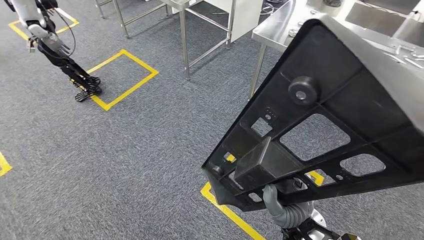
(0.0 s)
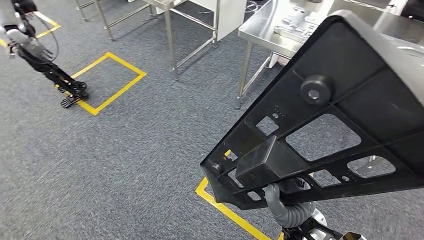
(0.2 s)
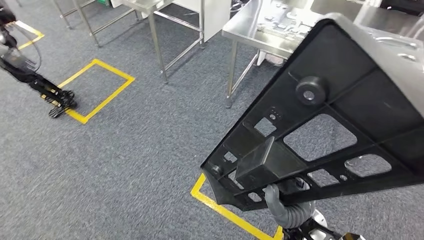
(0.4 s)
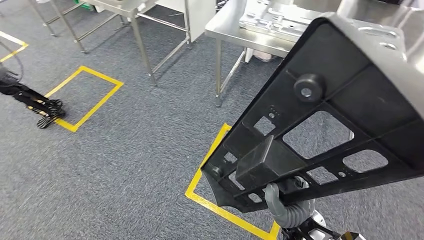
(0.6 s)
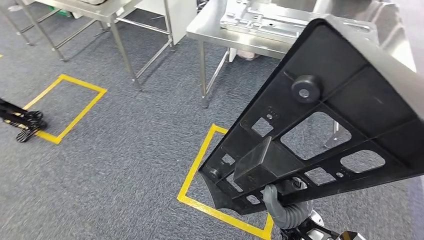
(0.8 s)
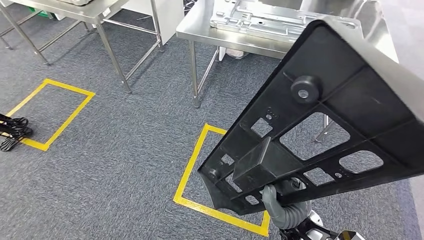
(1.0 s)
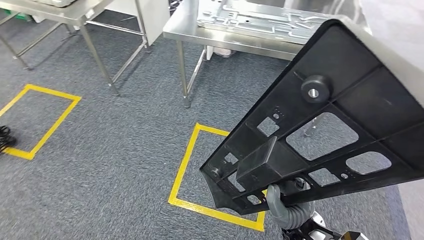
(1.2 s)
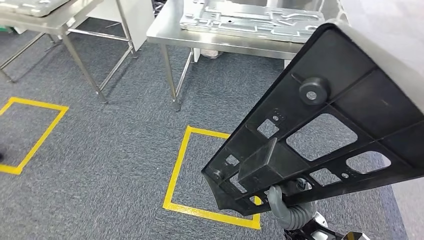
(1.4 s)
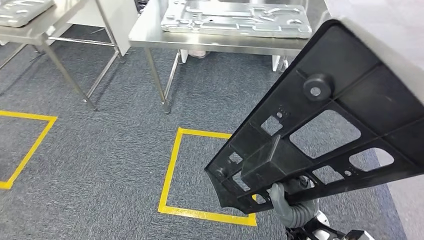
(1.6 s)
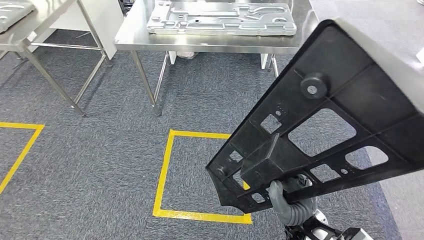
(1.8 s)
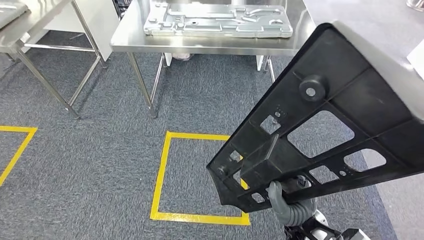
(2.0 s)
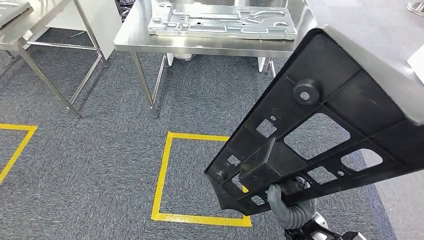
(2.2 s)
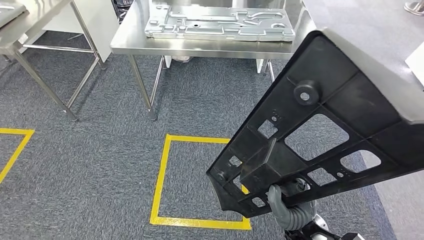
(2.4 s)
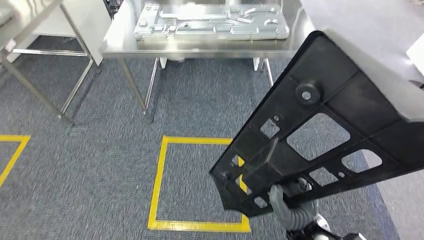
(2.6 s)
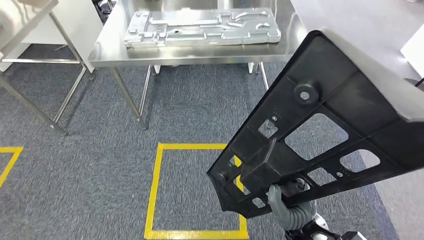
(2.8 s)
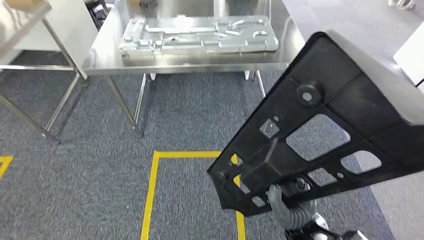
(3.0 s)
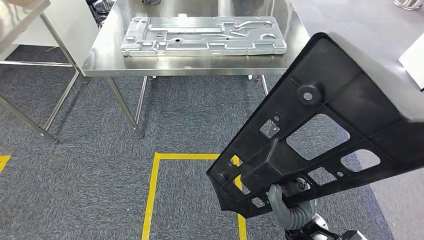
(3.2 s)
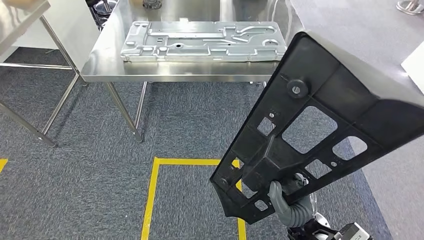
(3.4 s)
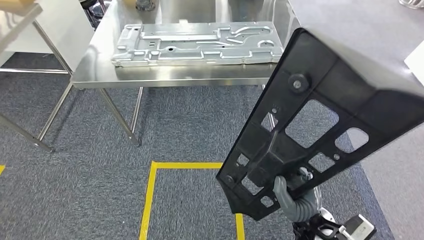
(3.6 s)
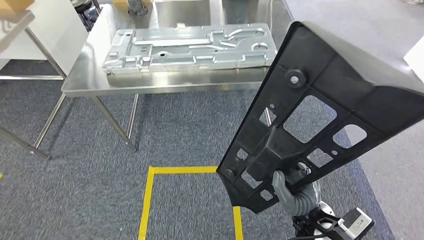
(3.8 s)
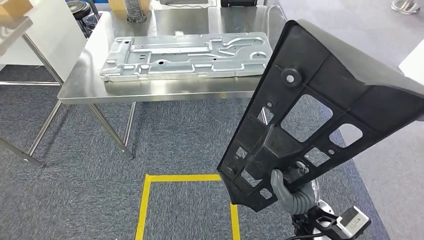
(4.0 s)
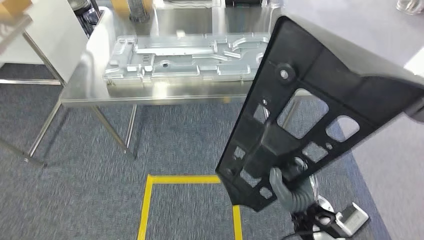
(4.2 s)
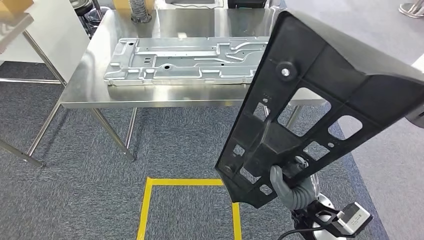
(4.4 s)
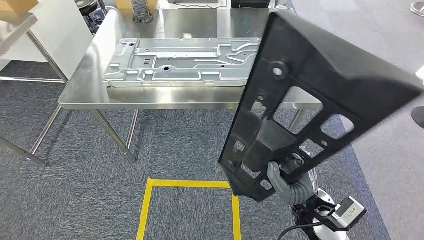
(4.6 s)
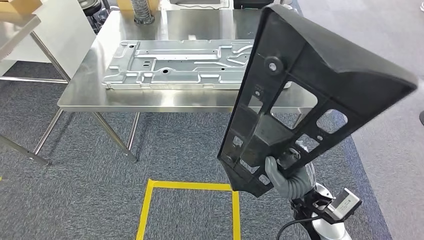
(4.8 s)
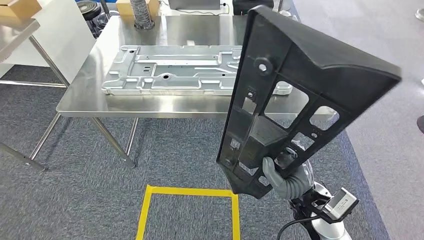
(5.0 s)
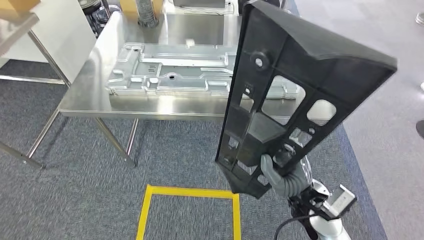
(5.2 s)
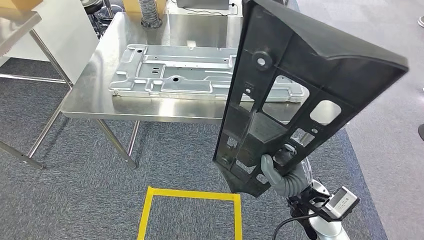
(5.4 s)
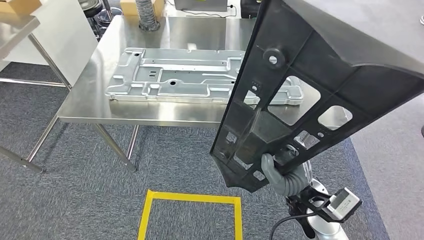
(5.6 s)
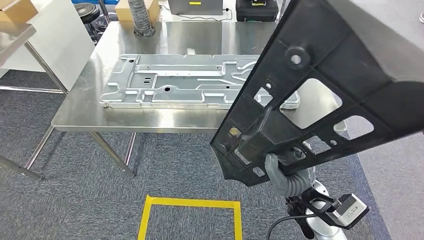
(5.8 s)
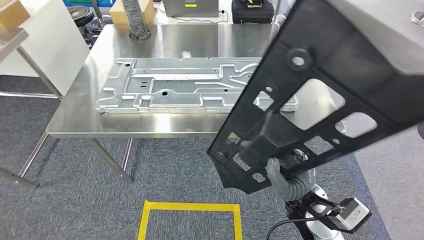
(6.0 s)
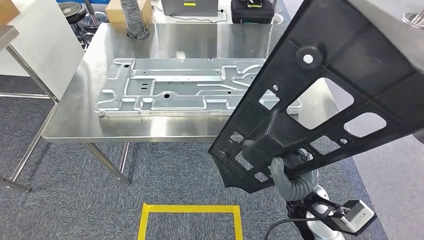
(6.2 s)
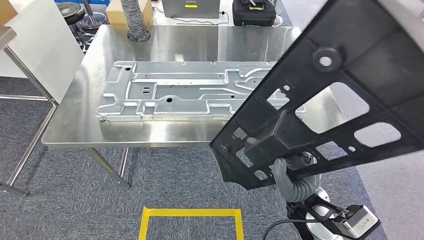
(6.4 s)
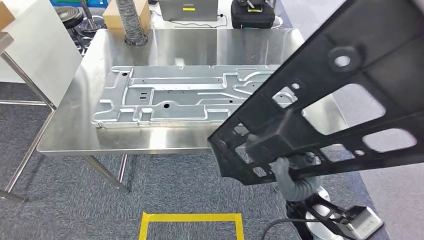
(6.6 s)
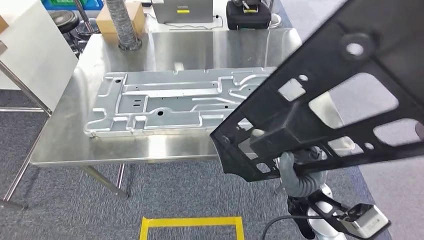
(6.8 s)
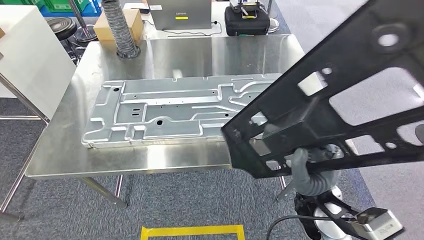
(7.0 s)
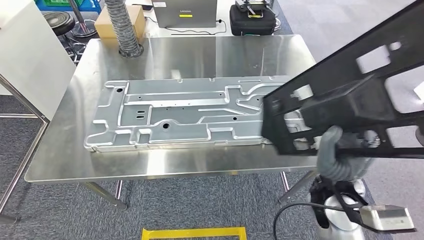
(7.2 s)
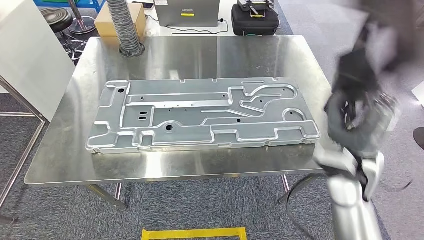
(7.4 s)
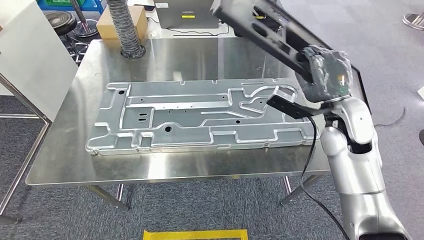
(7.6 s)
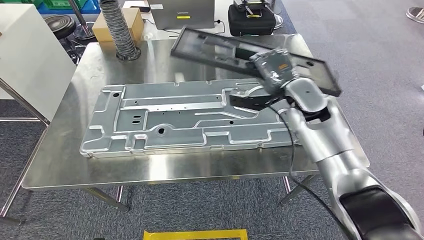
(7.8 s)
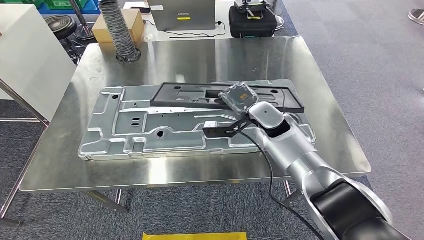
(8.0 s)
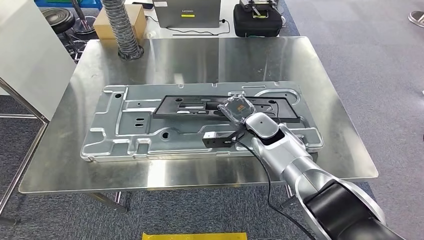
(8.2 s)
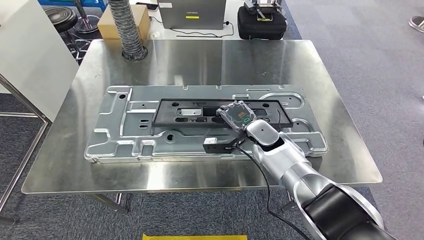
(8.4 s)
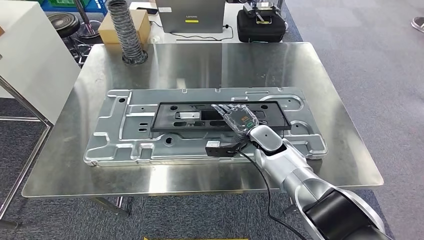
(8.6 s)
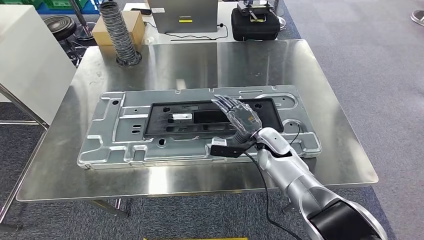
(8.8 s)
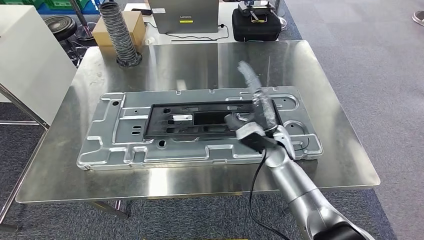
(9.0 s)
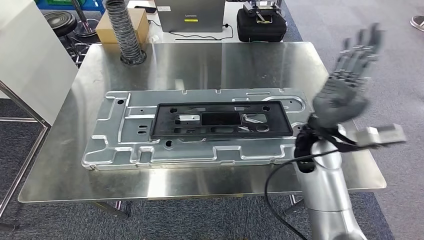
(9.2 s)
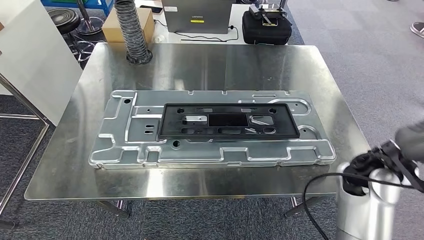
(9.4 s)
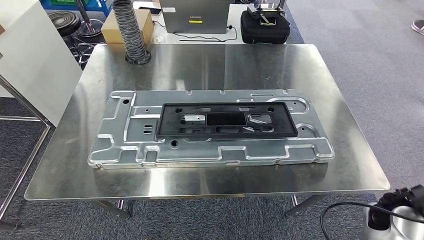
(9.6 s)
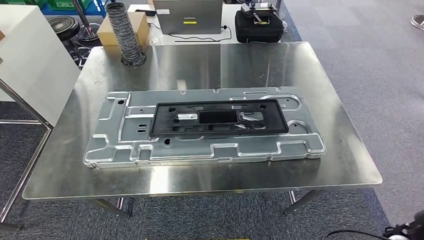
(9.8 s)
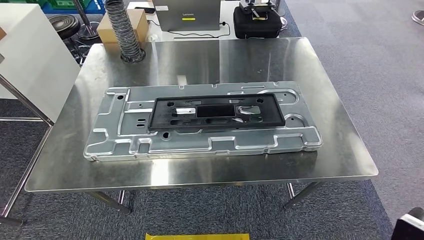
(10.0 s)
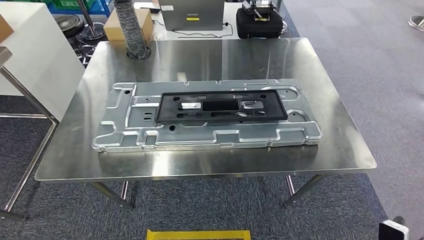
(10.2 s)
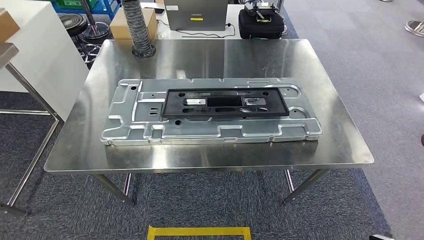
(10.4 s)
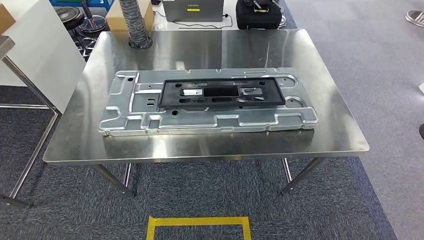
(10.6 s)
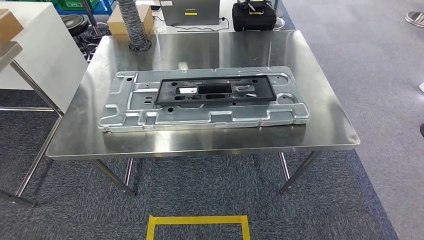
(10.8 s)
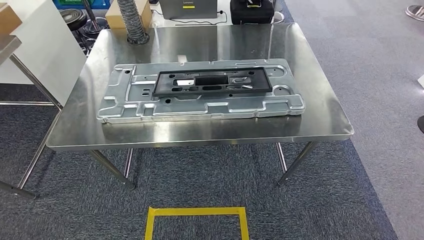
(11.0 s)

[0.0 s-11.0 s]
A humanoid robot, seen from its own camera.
Step, 0.0 to 7.2 s: Move the small component to the workbench.
Step, 7.4 to 10.2 s: Insert the small component into the corresponding slot on the workbench.

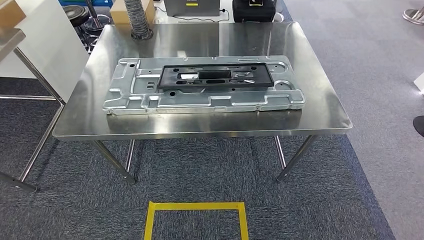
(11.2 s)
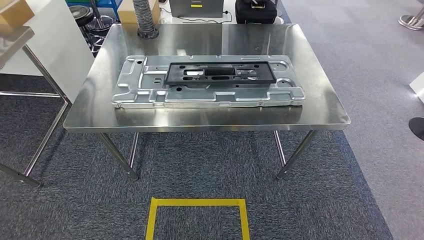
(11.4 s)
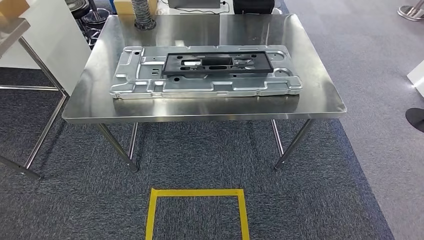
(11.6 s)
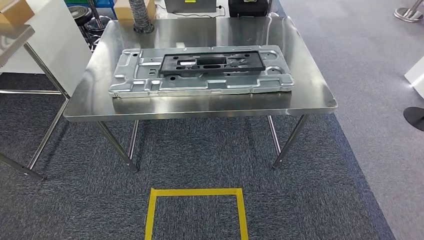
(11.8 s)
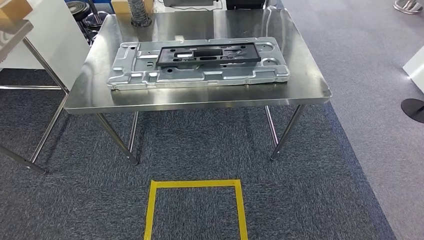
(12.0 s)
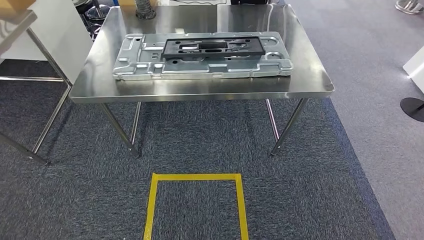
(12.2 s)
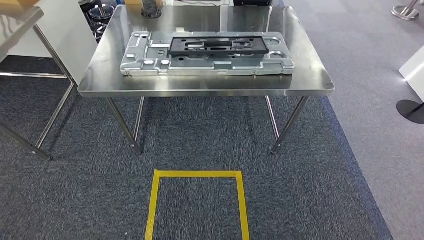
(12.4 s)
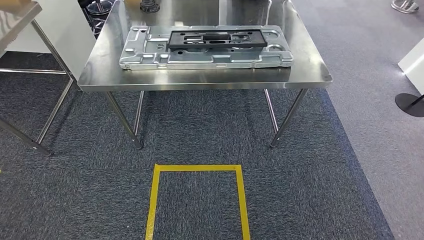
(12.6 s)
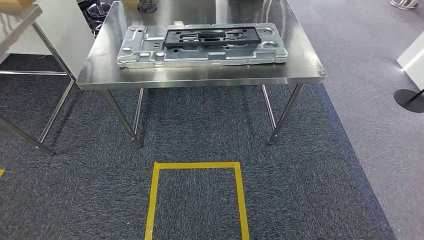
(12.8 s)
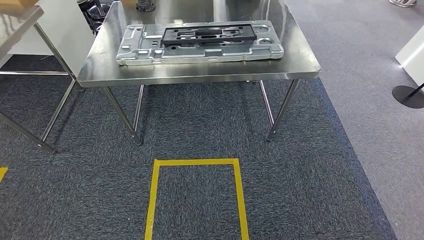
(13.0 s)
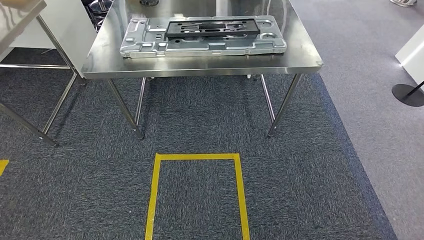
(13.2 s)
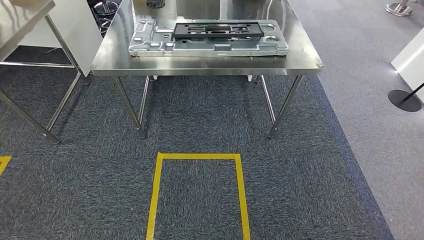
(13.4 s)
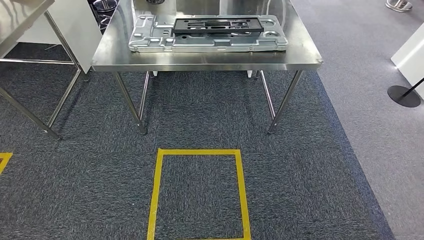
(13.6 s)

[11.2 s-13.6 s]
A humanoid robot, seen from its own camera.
Step, 11.2 to 13.6 s: Return to the initial position at the workbench.
